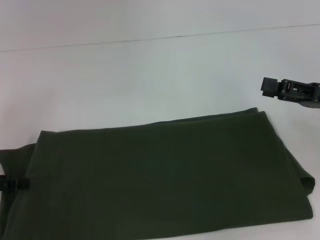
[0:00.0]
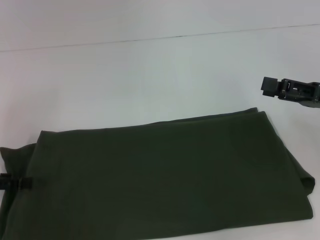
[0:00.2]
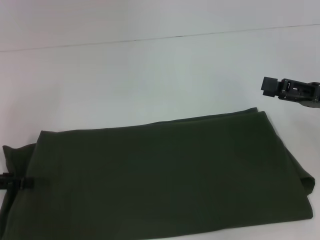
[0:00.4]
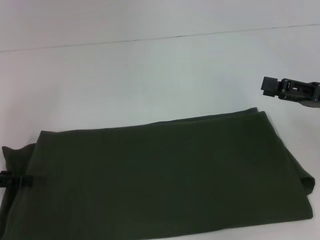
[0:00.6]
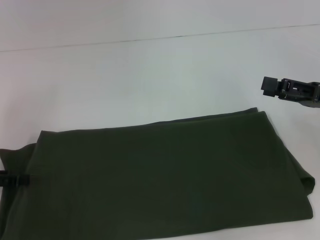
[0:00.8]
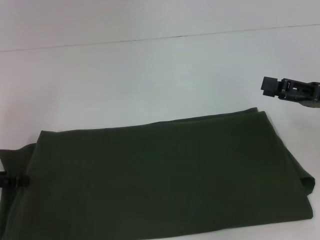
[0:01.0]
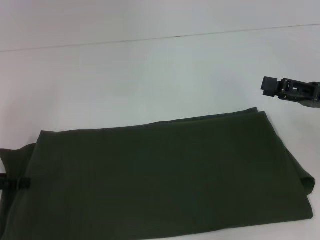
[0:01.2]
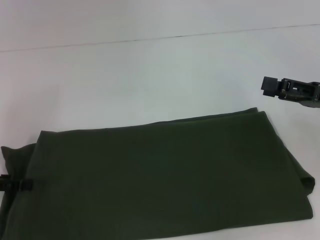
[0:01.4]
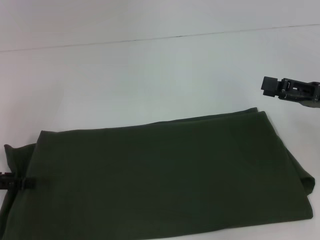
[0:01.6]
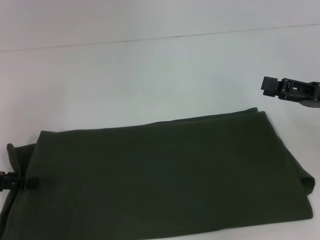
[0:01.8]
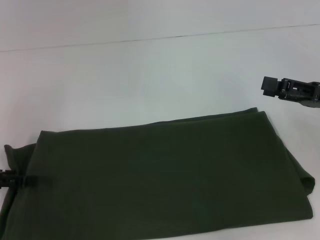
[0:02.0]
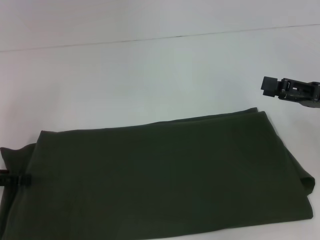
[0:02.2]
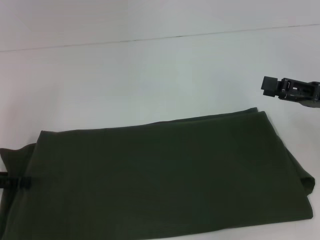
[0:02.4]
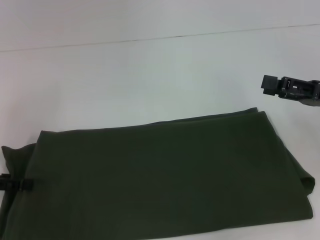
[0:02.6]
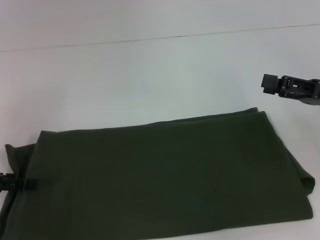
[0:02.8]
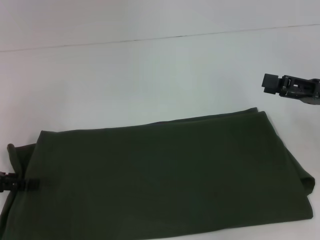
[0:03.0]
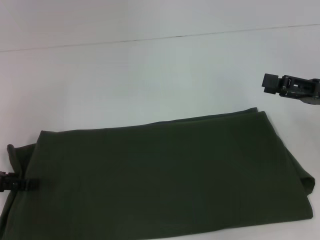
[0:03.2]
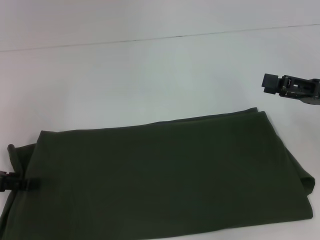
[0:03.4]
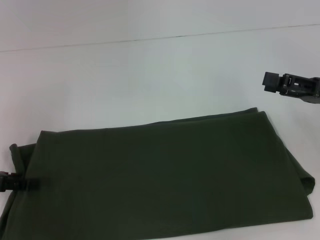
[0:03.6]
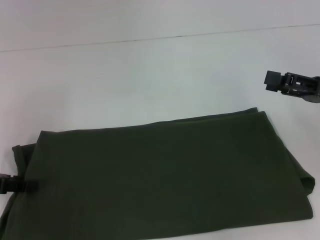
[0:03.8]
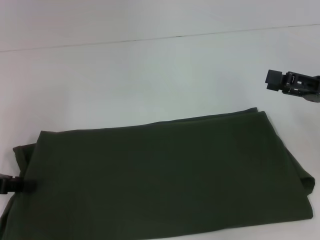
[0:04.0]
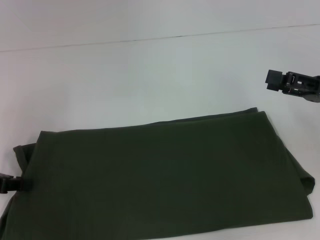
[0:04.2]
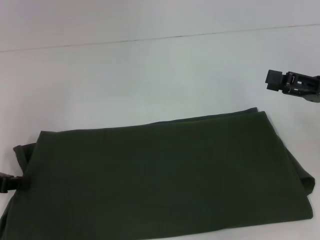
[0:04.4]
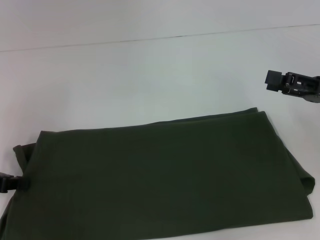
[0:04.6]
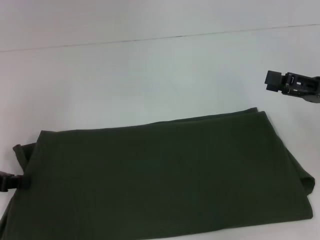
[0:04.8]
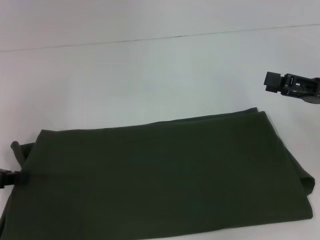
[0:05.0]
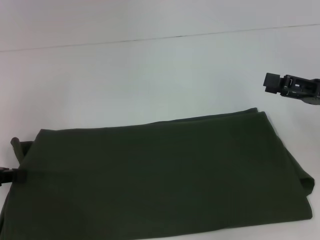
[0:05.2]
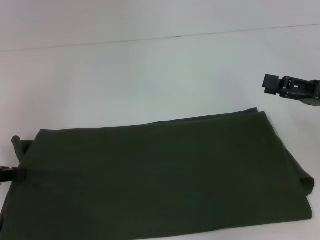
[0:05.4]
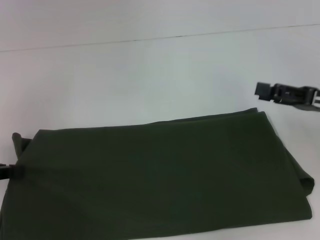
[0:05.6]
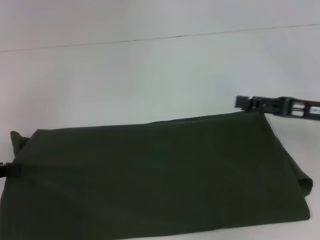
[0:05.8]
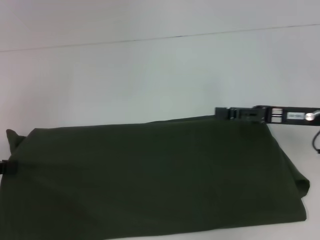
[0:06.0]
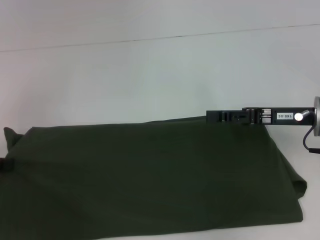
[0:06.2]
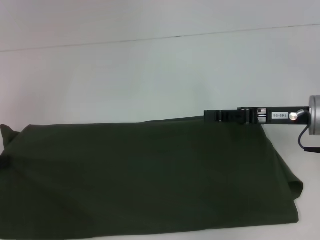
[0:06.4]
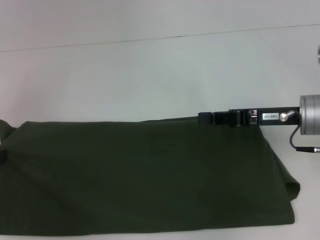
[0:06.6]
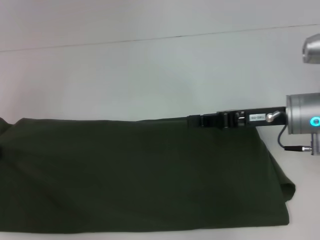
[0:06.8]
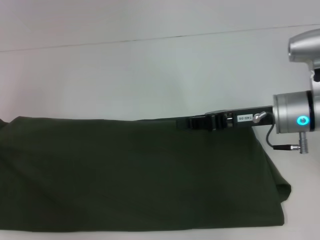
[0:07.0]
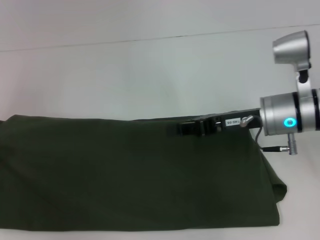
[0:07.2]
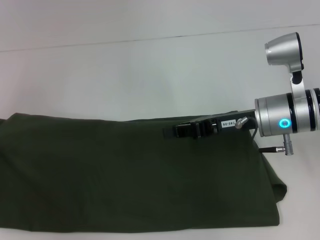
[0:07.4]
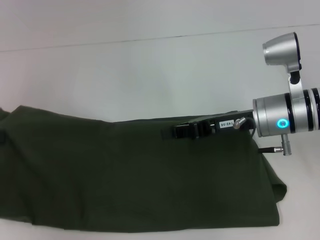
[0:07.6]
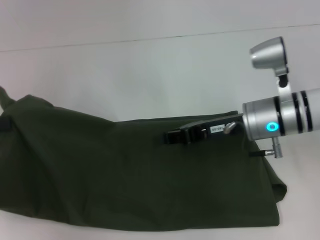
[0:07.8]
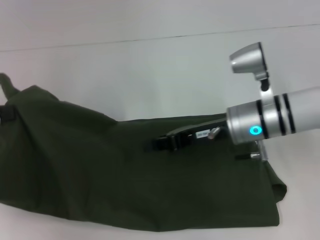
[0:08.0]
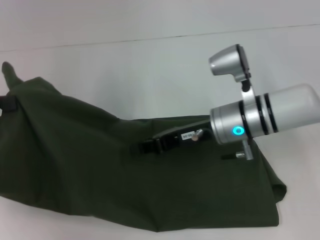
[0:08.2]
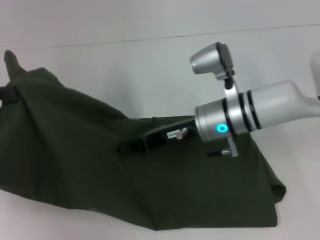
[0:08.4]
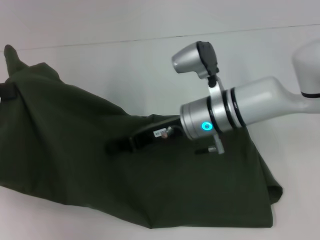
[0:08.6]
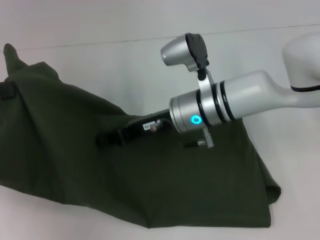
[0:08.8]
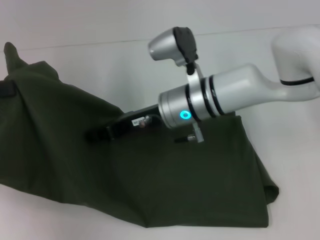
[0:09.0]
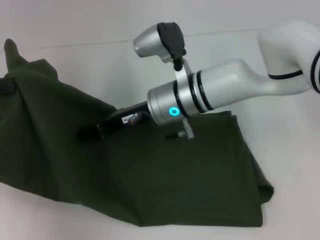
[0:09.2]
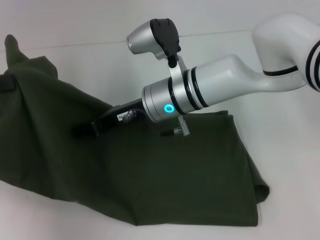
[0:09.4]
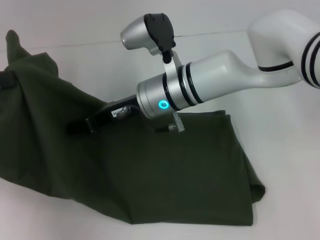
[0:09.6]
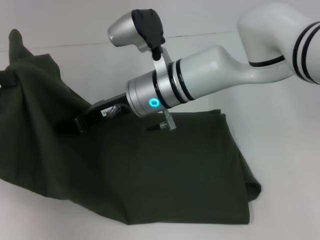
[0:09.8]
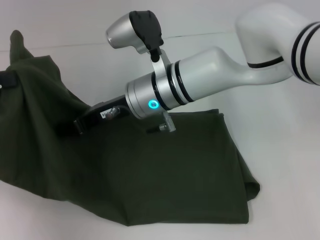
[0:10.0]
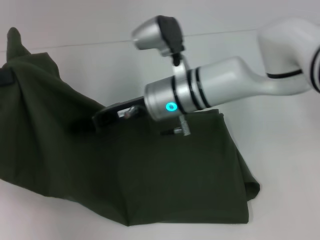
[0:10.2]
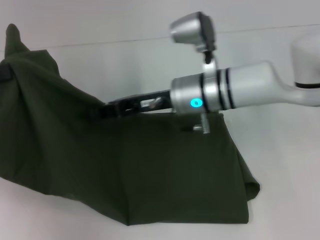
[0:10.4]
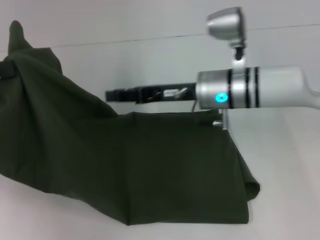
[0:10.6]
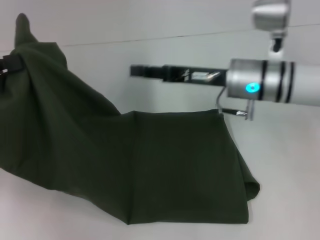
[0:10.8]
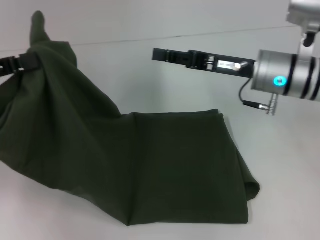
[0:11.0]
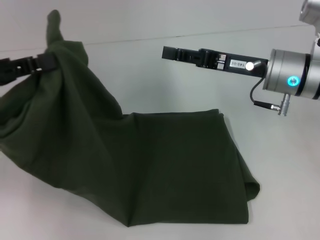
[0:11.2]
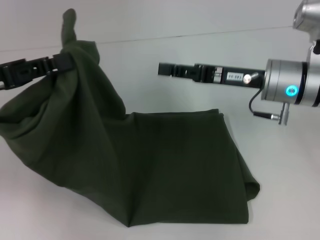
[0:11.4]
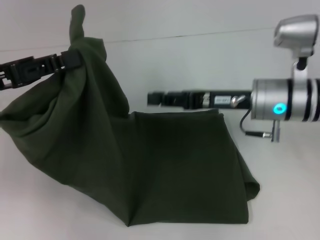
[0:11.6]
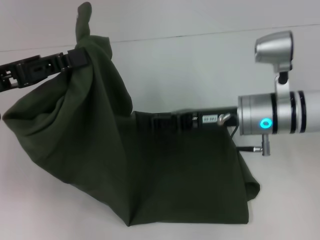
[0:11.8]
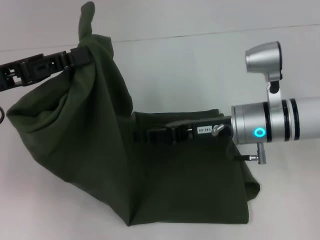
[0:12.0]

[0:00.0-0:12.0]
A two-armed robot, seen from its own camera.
0:00.0 to 0:01.6: Both grippers stay put.
0:01.6 to 0:03.0: The two grippers keep their place.
0:03.0 to 0:04.4: The left gripper closes its fingers.
0:04.4 to 0:06.0: The right gripper is displaced to the left by roughly 5 cm.
0:06.0 to 0:07.6: The right gripper shifts roughly 10 cm to the left, and closes.
0:07.6 to 0:09.0: The right gripper goes some 15 cm to the left.
0:09.0 to 0:10.4: The grippers stay close to where they were, moving slightly.
0:10.4 to 0:12.0: The two grippers go roughly 10 cm to the right.

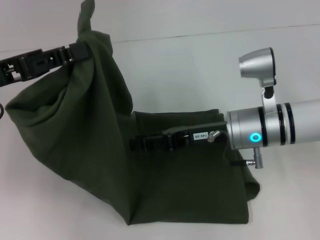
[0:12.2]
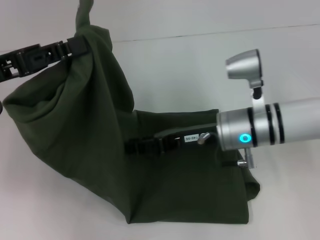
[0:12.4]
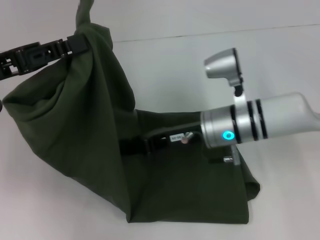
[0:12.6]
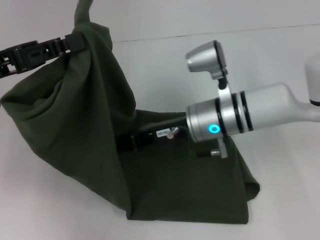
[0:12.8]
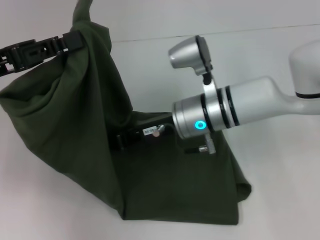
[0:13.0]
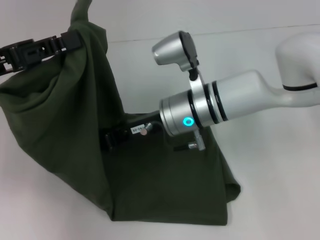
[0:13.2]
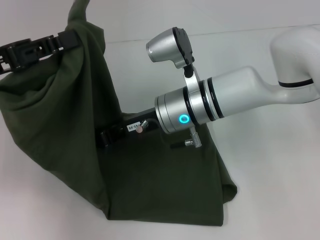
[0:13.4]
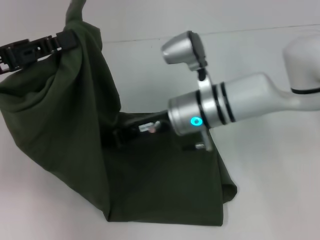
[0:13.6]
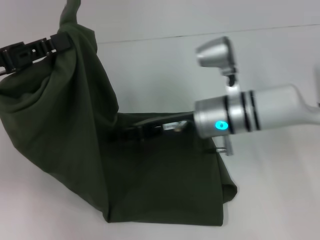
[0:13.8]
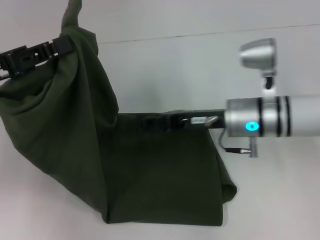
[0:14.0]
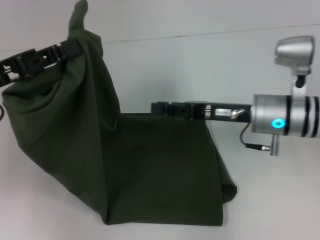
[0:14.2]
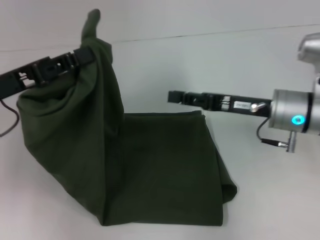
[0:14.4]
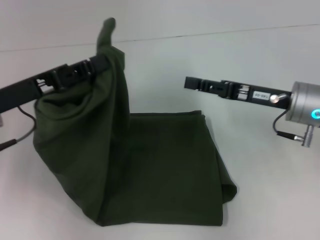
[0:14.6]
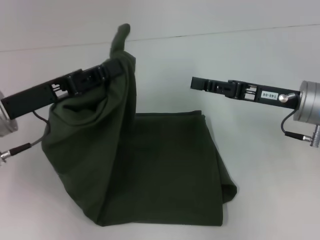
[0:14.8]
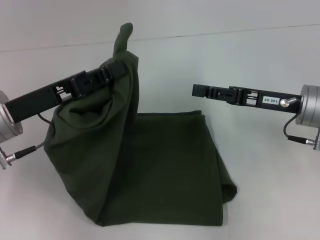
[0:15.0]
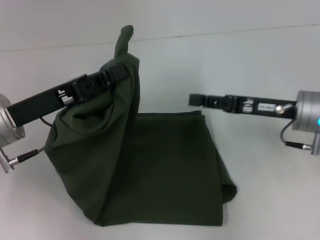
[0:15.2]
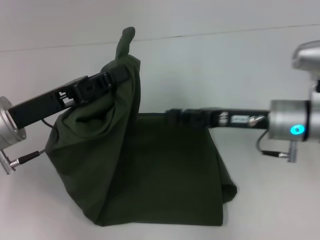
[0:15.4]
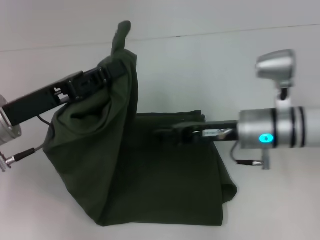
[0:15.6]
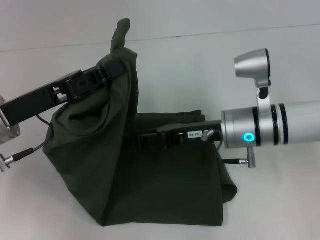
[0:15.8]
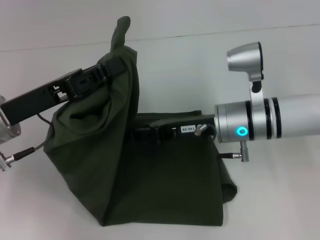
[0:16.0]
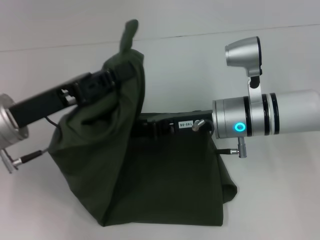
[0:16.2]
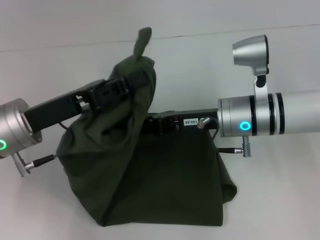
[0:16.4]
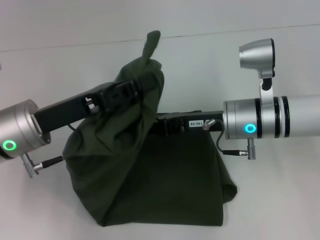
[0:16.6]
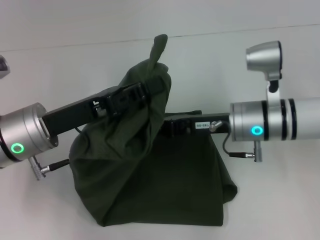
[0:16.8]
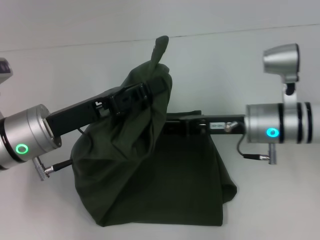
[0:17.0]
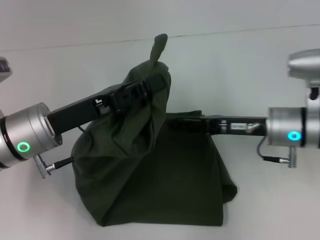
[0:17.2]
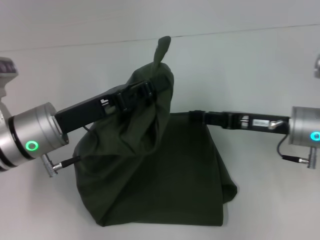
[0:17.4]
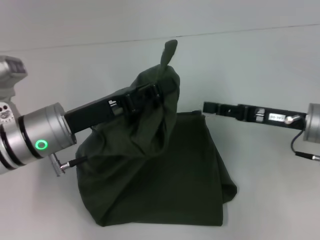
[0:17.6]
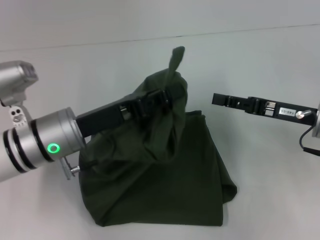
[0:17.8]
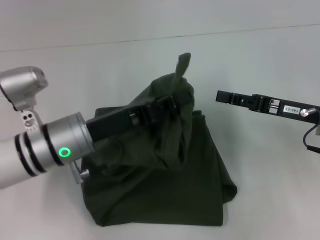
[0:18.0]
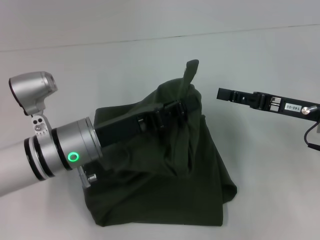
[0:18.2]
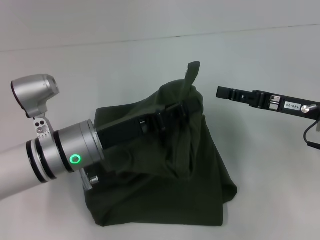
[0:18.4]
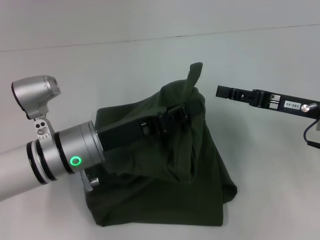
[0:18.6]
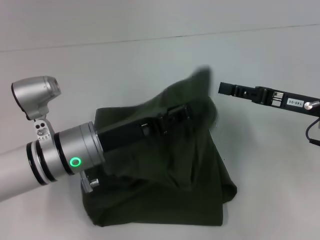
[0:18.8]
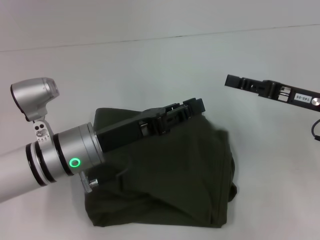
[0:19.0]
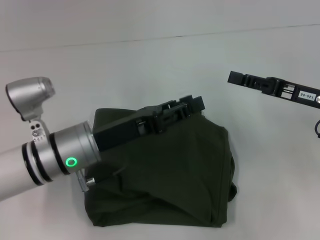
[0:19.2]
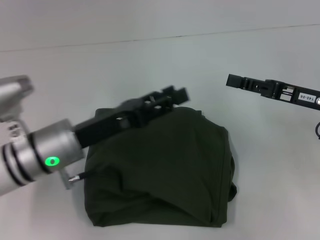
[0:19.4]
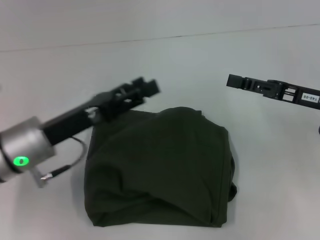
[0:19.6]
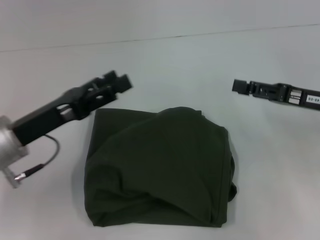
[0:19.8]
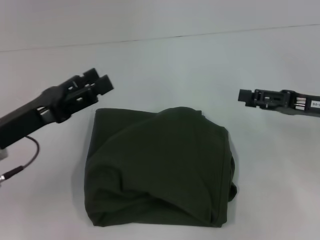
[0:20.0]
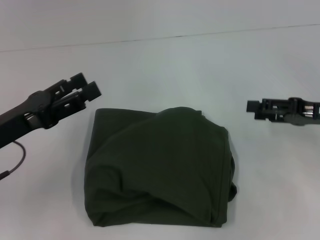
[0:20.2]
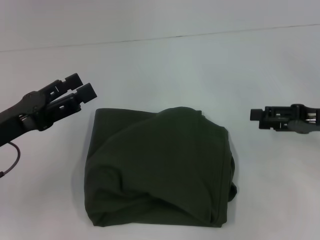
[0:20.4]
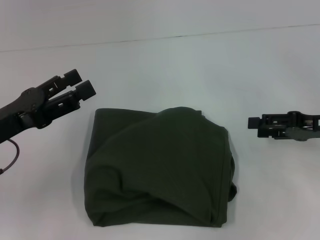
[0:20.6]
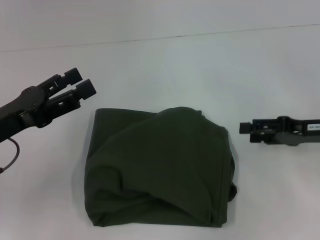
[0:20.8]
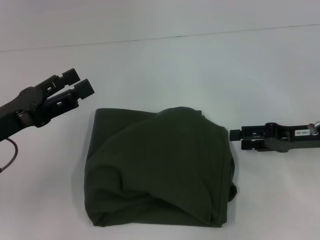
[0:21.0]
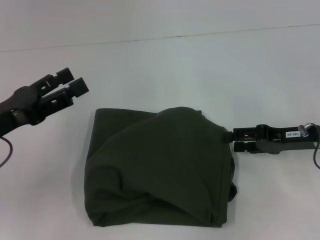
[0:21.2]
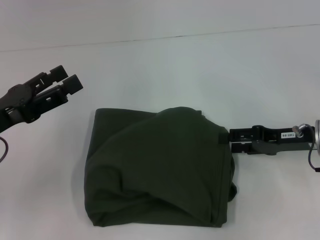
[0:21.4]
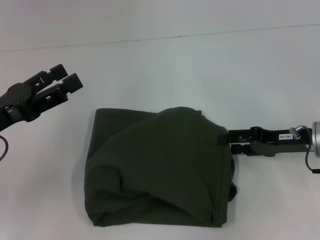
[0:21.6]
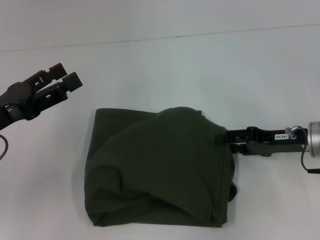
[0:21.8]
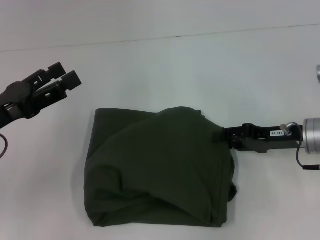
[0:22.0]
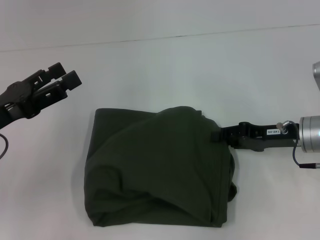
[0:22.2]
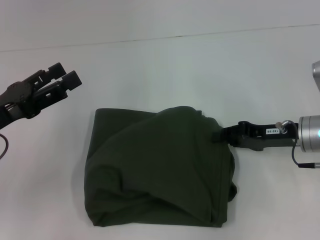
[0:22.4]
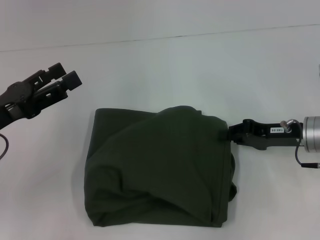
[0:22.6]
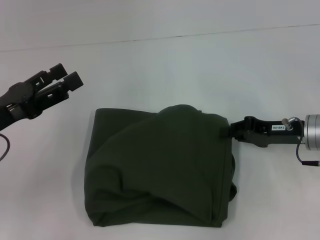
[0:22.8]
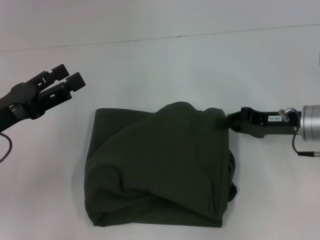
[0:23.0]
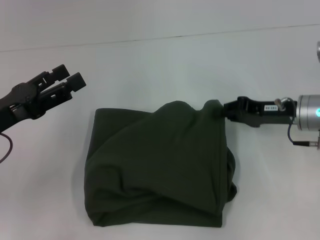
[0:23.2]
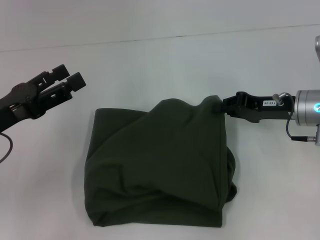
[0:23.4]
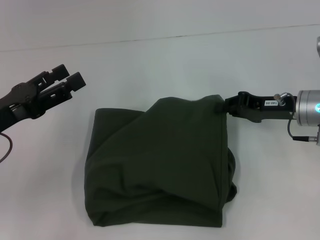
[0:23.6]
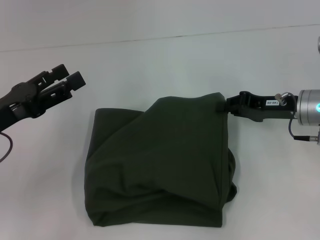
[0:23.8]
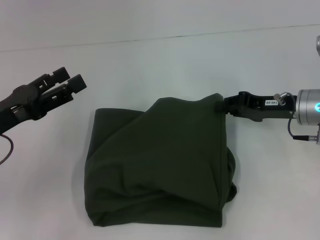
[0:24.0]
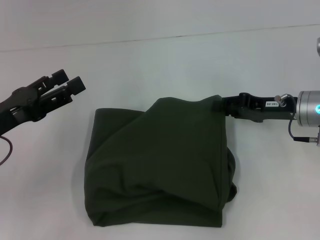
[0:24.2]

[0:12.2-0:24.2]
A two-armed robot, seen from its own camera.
Step, 0:12.2 to 0:19.6: Fold the clothes with your left hand.
0:13.8 to 0:15.2: The left gripper travels downward and to the right by roughly 10 cm. Meanwhile the right gripper shifts some 15 cm to the right.
0:15.2 to 0:16.6: The right gripper goes some 10 cm to the left.
0:16.6 to 0:18.2: The right gripper is displaced to the right by approximately 15 cm, while the left gripper travels to the right by approximately 5 cm.
0:18.2 to 0:19.8: The left gripper moves to the left, roughly 10 cm, and opens.
0:19.8 to 0:21.2: The left gripper is displaced to the left by approximately 5 cm.
0:21.2 to 0:22.6: The right gripper closes up.
0:22.6 to 0:24.2: The grippers make only small movements.
